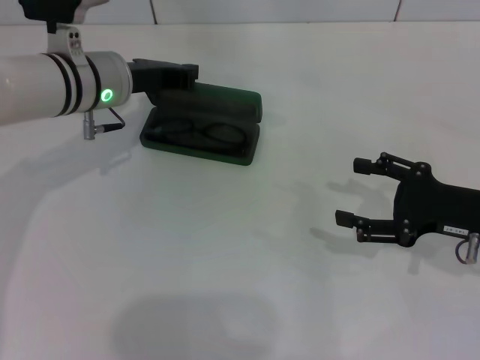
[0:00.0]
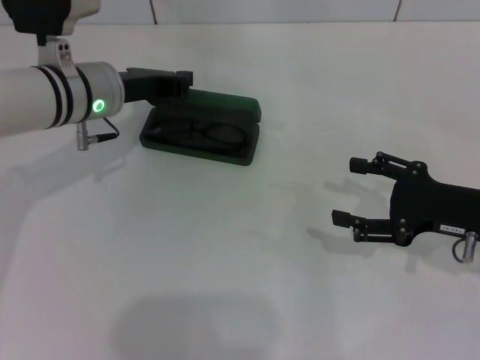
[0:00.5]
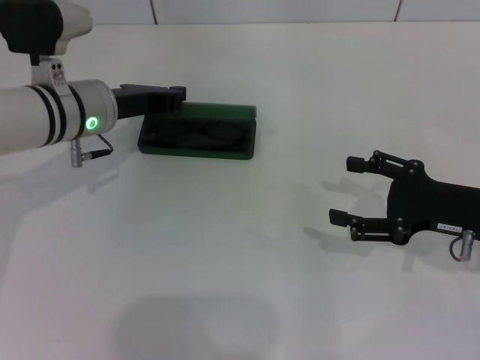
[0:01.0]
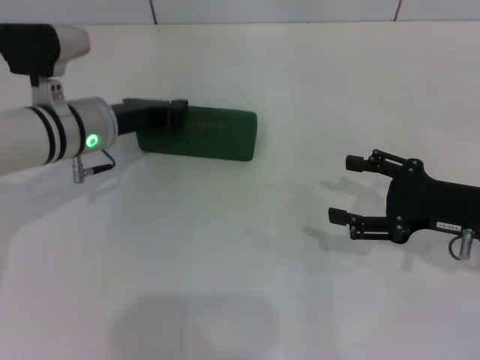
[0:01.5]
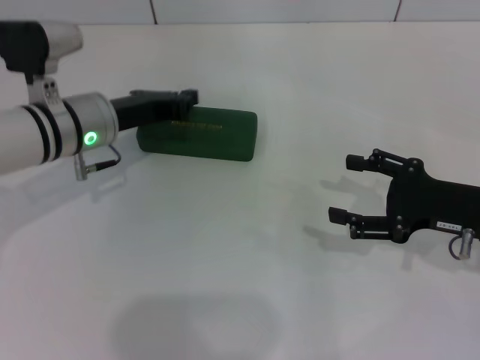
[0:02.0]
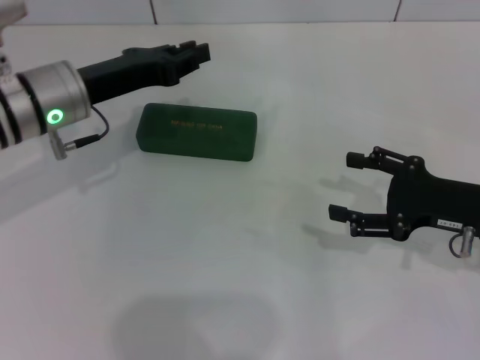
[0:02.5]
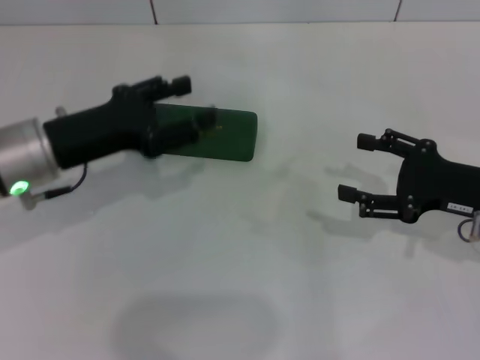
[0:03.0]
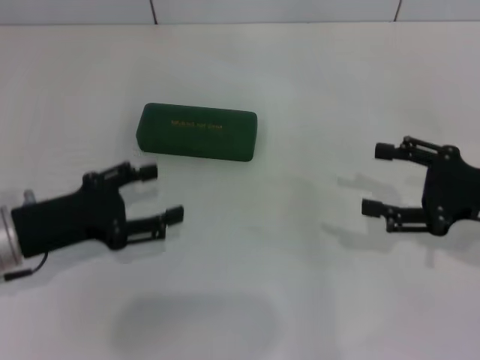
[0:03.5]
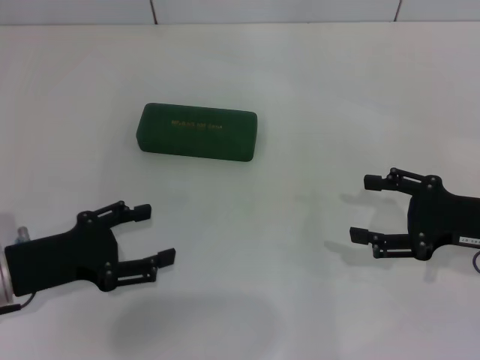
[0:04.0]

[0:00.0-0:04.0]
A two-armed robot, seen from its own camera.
0:00.0 to 0:02.0: There are only small adjustments of the grippers.
0:02.0 to 0:04.0: The left gripper is displaced backward and to the left by about 15 cm, and opens its fingers.

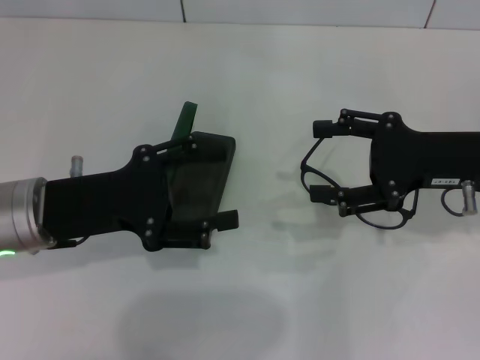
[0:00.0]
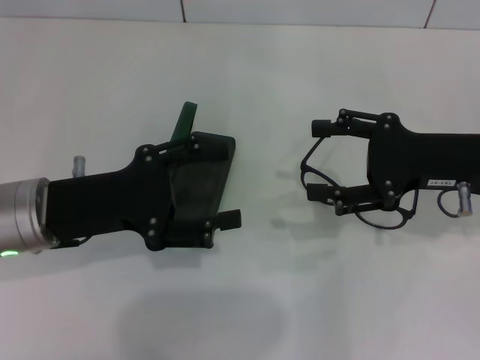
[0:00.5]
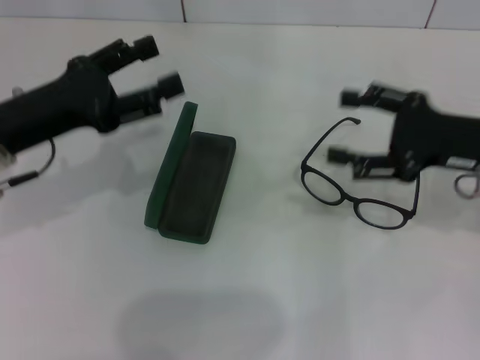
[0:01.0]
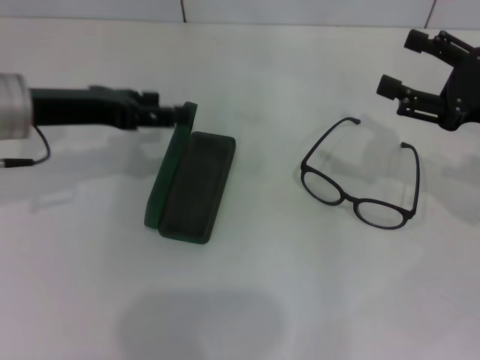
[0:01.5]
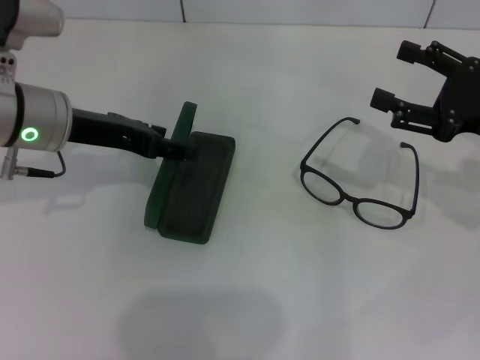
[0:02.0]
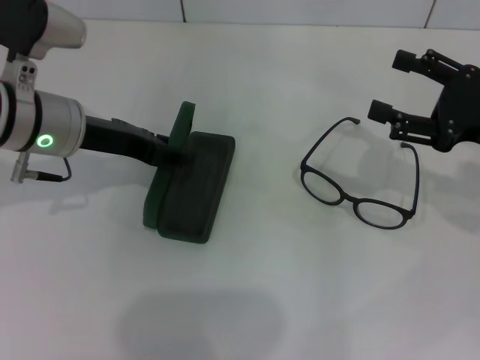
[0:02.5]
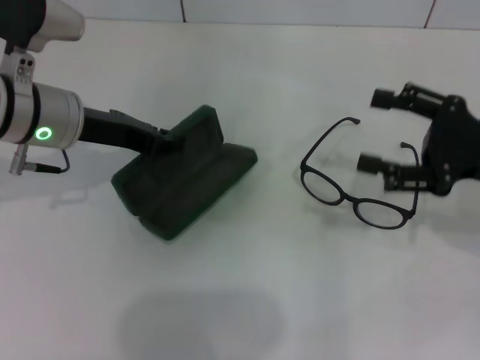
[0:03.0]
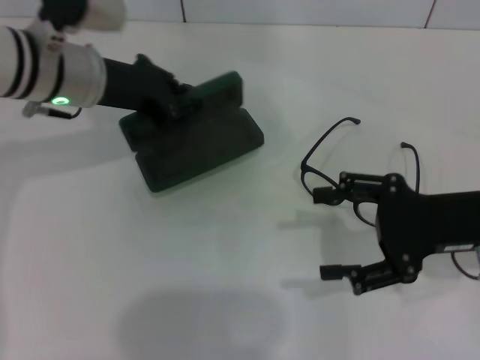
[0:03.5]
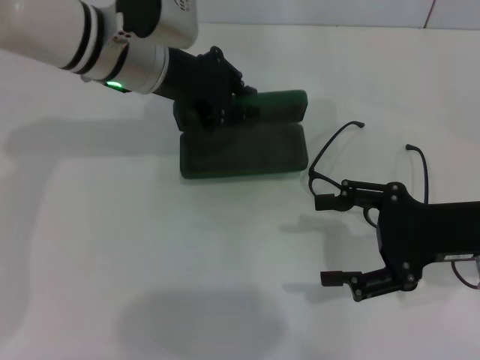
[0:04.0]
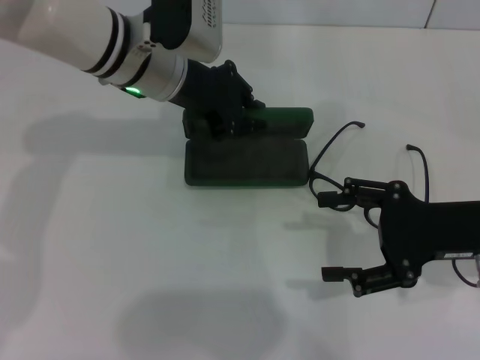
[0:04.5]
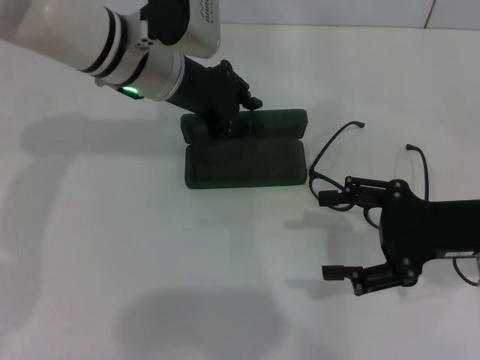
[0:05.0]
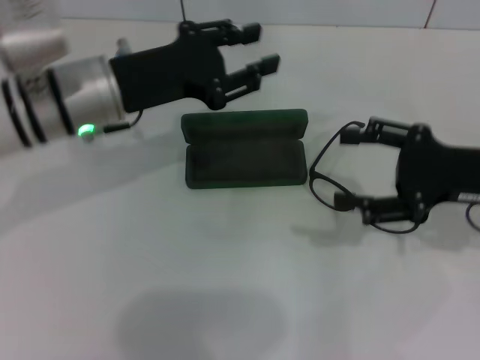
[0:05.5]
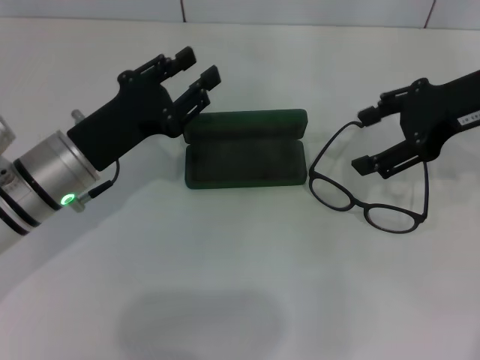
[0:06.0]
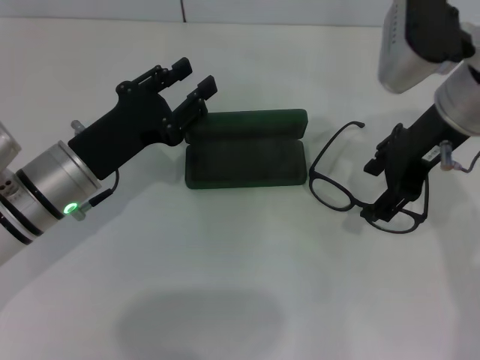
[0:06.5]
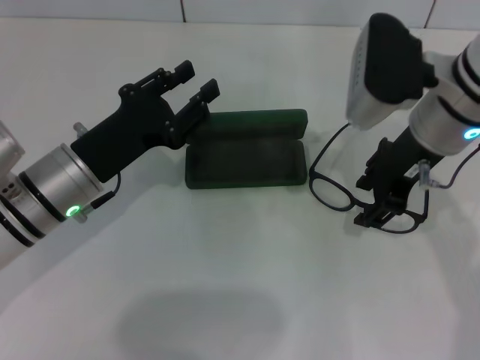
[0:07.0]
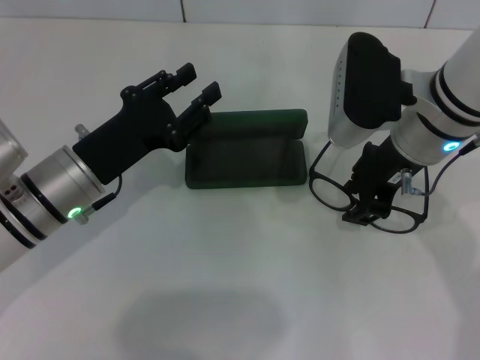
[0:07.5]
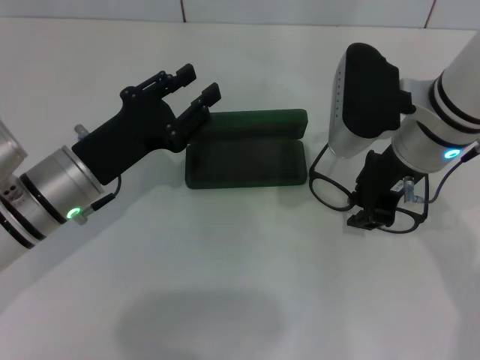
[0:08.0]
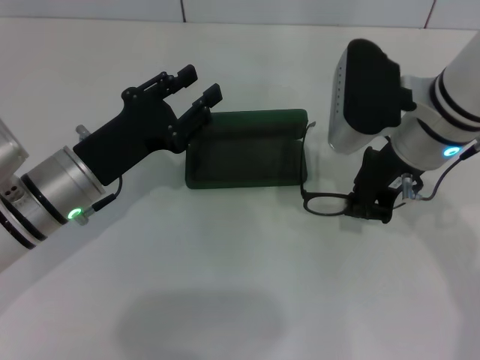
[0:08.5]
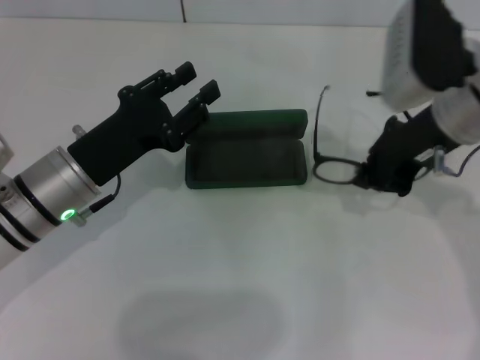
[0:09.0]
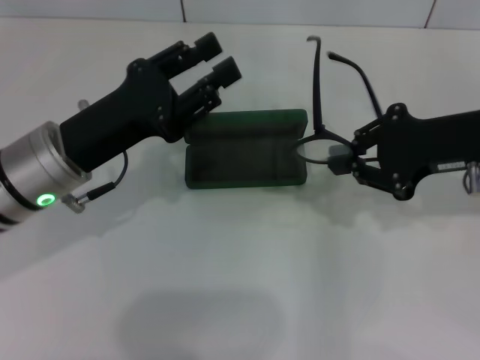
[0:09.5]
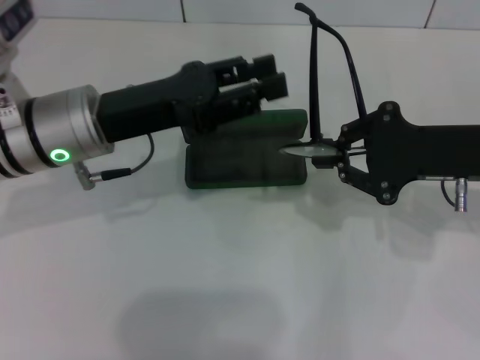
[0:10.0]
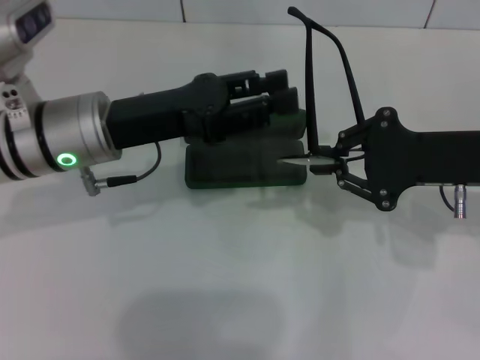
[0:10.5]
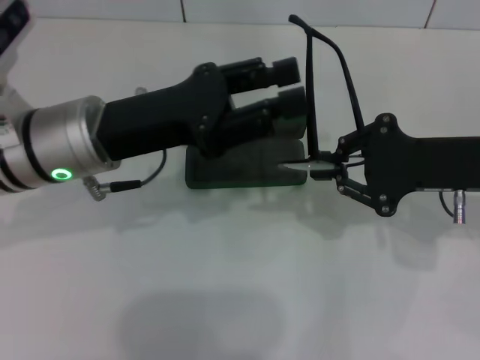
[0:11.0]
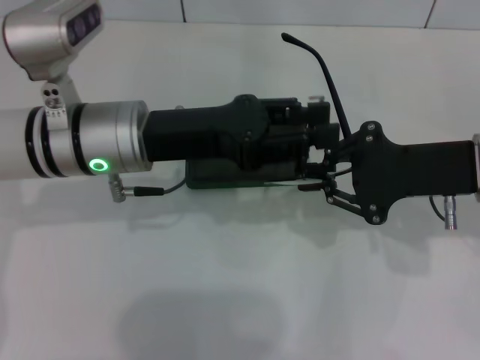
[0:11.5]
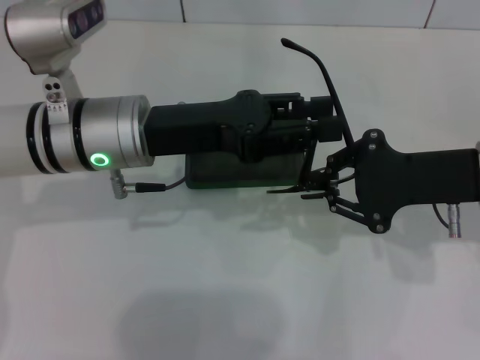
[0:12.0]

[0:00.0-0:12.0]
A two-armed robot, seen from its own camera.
Step, 0:00.0 to 0:02.5: Grab the glasses case with your left hand.
Step, 0:03.0 to 0:05.0: Place the glasses case in the center of the table with your left hand.
Step, 0:05.5 to 0:08.0: Grab the eyeglass frame with your right hand.
0:00.0 to 0:02.0: The right gripper heads to the right, covering about 5 cm, while the left gripper shifts some 10 cm forward.
0:02.0 to 0:04.0: The left gripper shifts about 10 cm to the right and forward, and closes up, while the right gripper shifts by some 5 cm.
0:04.0 to 0:06.0: The right gripper heads upward and forward, covering roughly 15 cm. Meanwhile the left gripper is displaced backward, downward and to the left by roughly 15 cm, and opens its fingers.
0:06.0 to 0:08.0: The right gripper moves to the left and downward, approximately 10 cm, and closes up.
0:08.0 to 0:10.0: The left gripper heads upward, covering approximately 5 cm; the right gripper goes roughly 10 cm to the right.

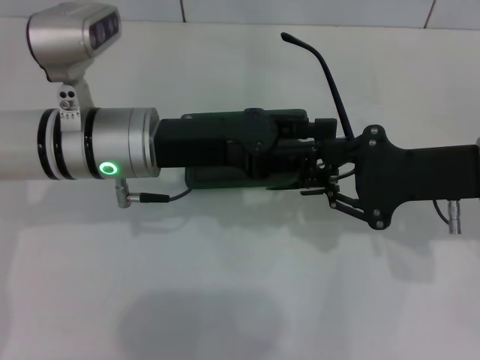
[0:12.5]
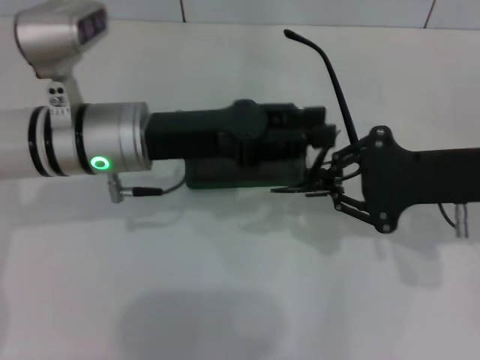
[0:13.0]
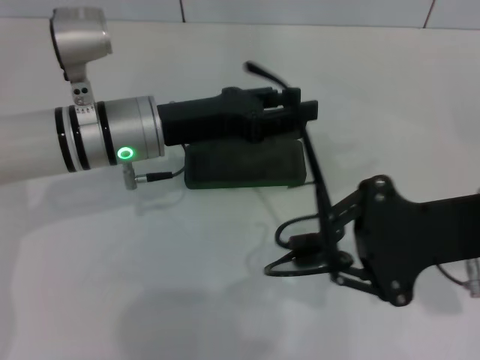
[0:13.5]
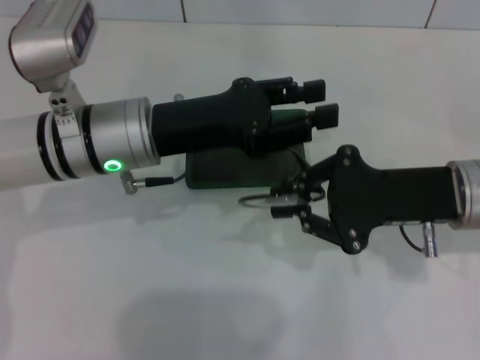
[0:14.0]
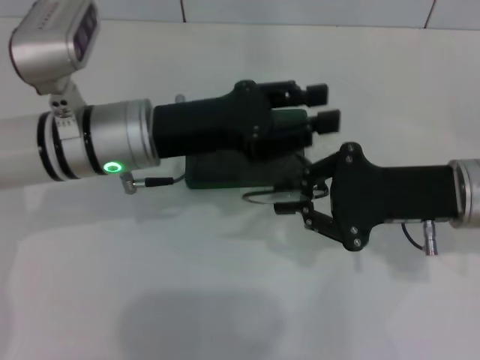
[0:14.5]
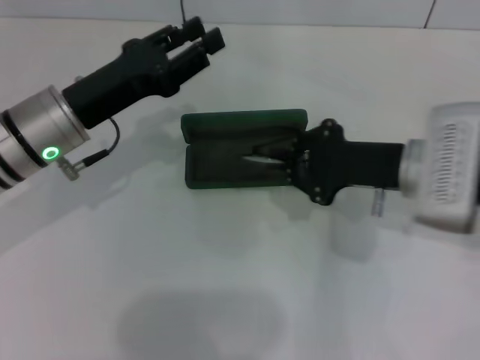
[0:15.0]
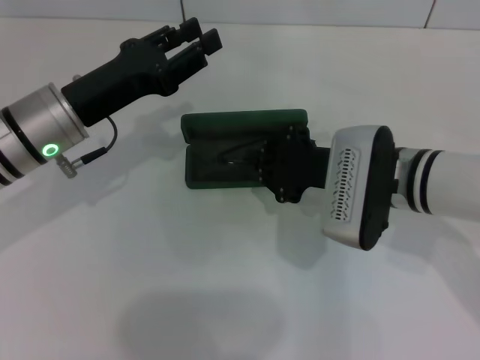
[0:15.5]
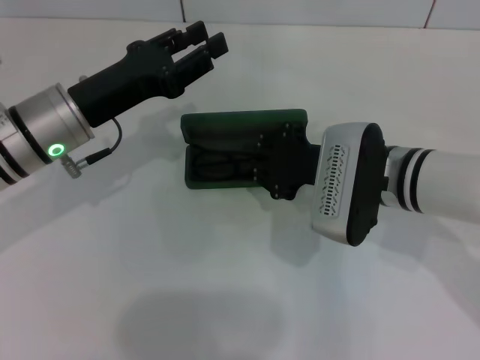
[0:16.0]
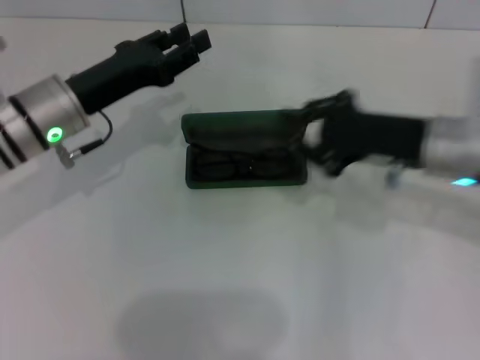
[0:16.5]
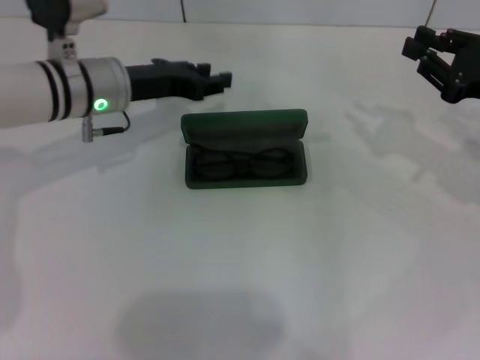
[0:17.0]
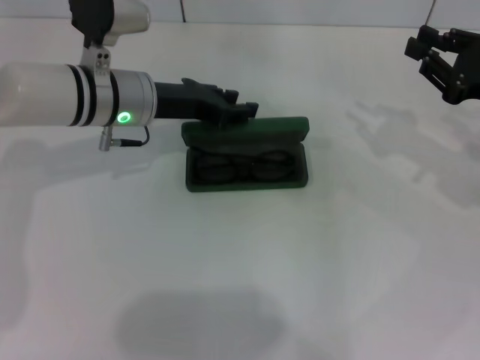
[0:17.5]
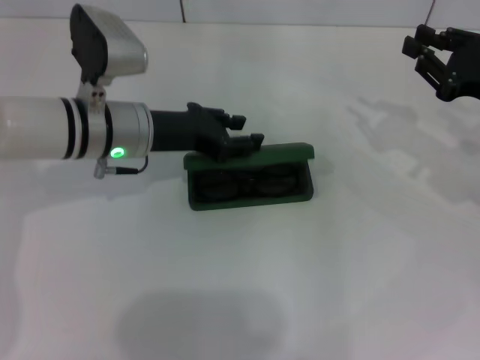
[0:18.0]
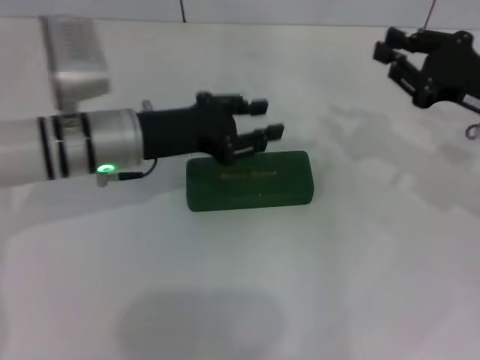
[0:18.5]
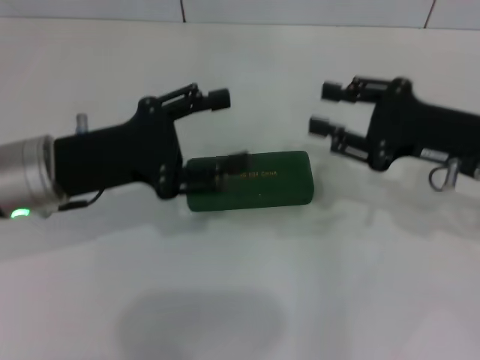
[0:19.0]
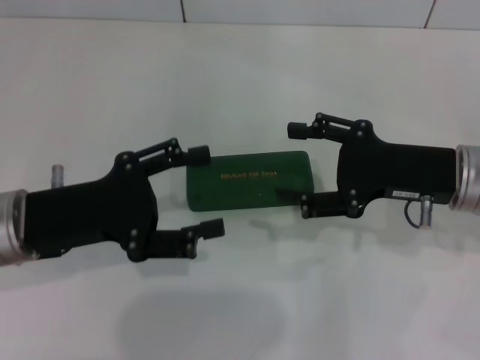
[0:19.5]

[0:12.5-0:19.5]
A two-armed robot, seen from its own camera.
Step, 0:14.5 to 0:16.0: Put the glasses into the case with your right hand.
Step, 0:16.5 to 0:18.0: Close the glasses case with your left hand.
0:14.5 to 0:16.0: Both grippers travel together to the left, about 10 cm.
0:16.0 to 0:17.5: The left gripper heads forward, covering about 5 cm, while the right gripper goes approximately 20 cm to the right.
0:17.5 to 0:19.5: The left gripper moves backward and to the left, approximately 15 cm, and opens its fingers. Meanwhile the right gripper is displaced to the left by some 10 cm, and opens.

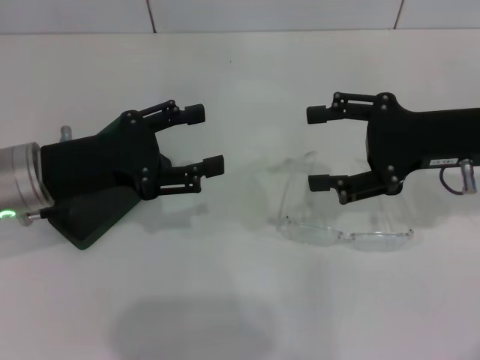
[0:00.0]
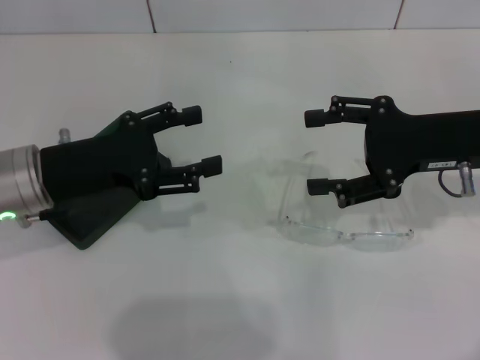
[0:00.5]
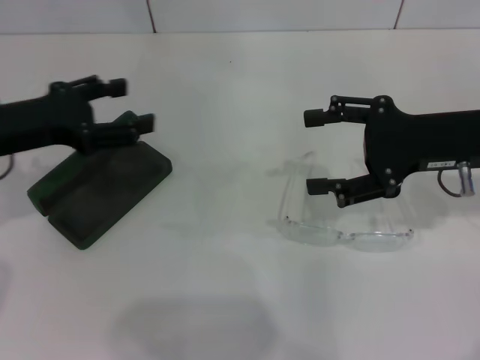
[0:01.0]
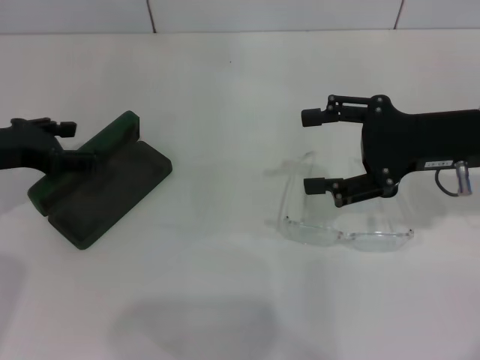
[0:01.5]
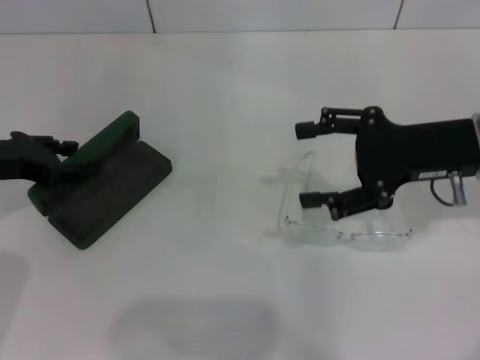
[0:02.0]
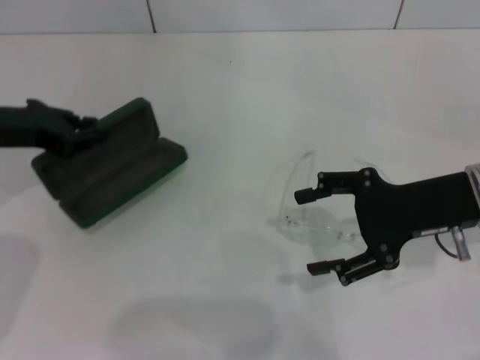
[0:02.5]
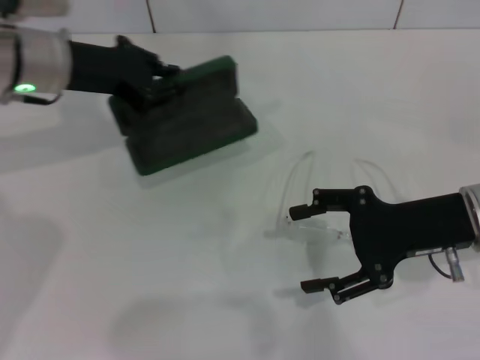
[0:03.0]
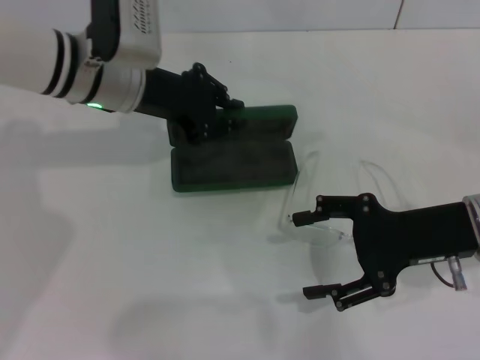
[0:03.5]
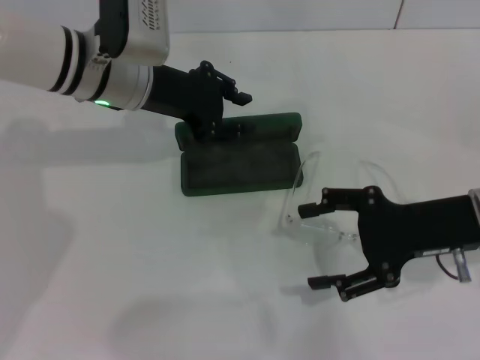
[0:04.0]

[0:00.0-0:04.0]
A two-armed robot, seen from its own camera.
Step, 0:00.0 to 0:02.0: Grab the glasses case with your left hand.
Step, 0:02.5 to 0:04.0: Place the glasses case in the center of the table with your left hand.
0:00.0 to 0:02.0: The left gripper shifts some 10 cm to the left.
0:02.0 to 0:04.0: The right gripper shifts by roughly 5 cm. The left gripper is displaced to the right and forward by about 20 cm, and closes up.
